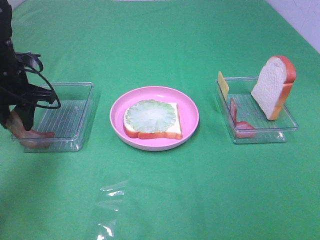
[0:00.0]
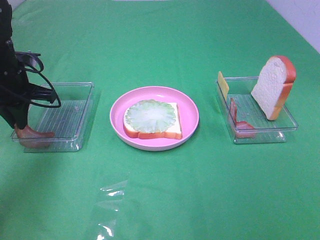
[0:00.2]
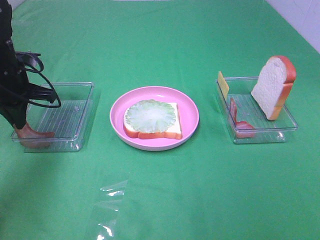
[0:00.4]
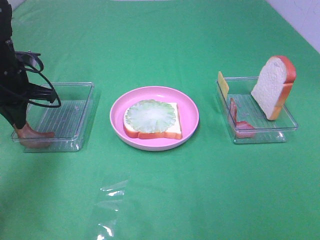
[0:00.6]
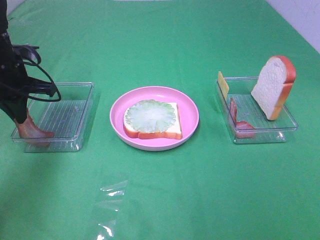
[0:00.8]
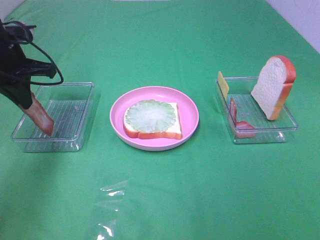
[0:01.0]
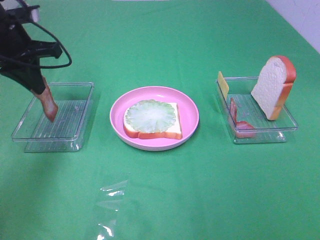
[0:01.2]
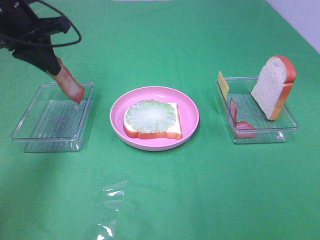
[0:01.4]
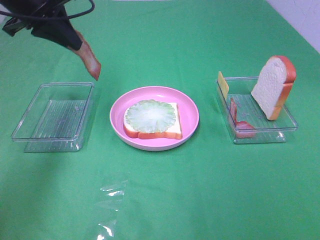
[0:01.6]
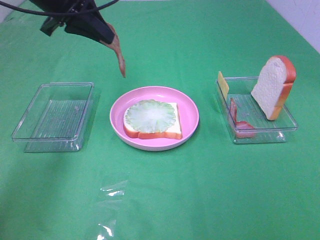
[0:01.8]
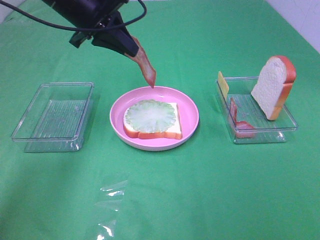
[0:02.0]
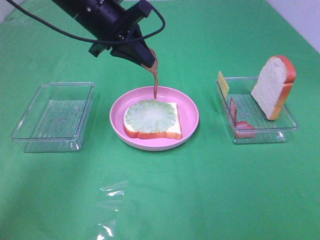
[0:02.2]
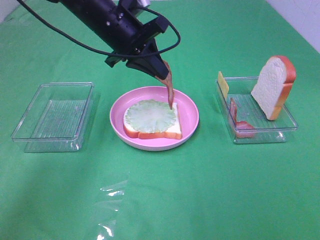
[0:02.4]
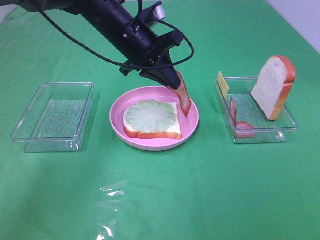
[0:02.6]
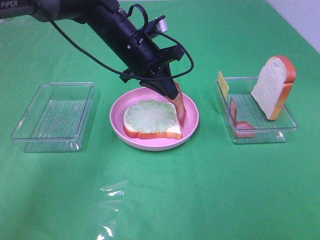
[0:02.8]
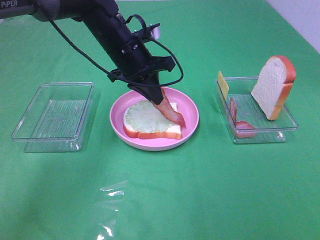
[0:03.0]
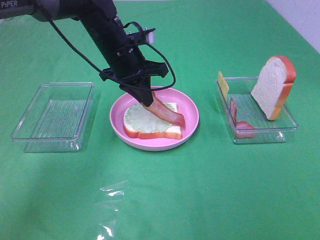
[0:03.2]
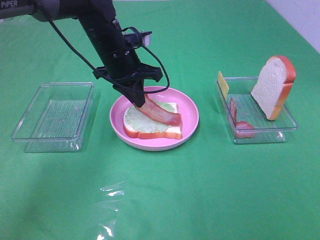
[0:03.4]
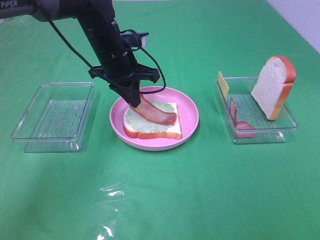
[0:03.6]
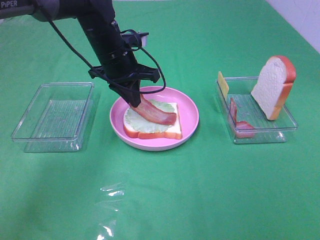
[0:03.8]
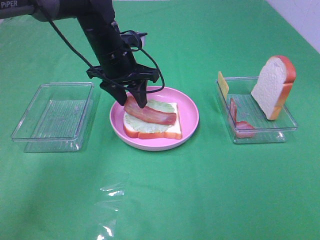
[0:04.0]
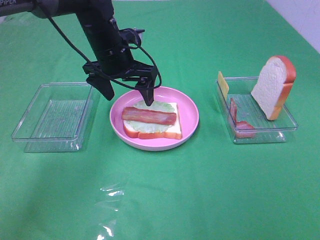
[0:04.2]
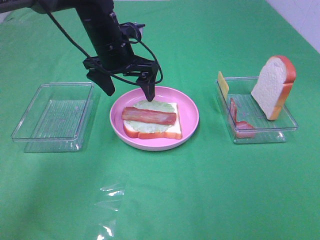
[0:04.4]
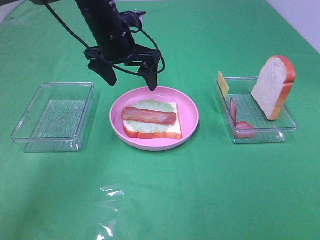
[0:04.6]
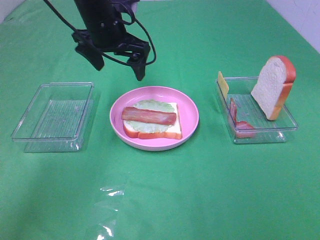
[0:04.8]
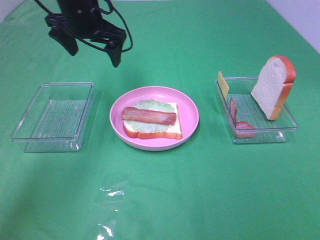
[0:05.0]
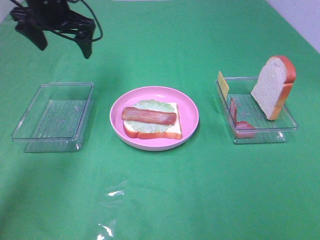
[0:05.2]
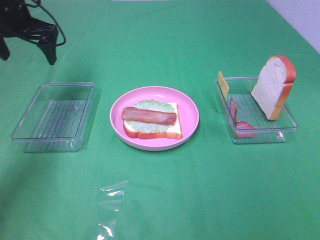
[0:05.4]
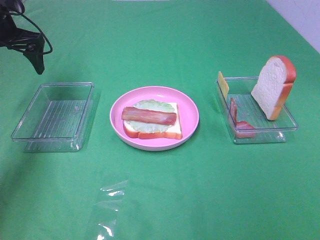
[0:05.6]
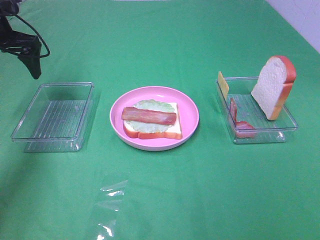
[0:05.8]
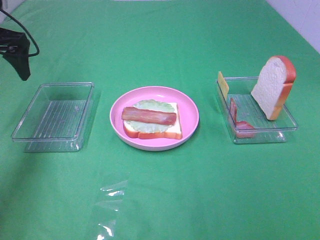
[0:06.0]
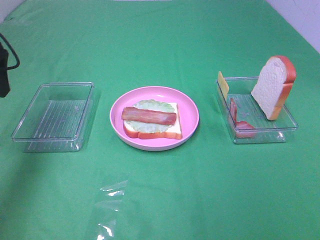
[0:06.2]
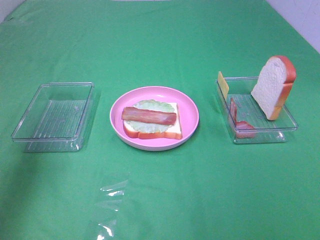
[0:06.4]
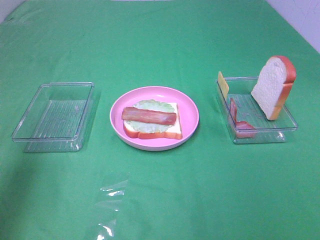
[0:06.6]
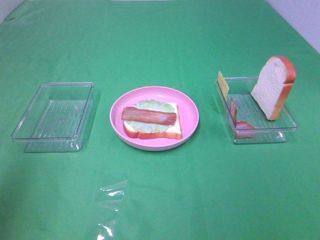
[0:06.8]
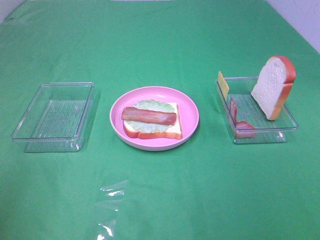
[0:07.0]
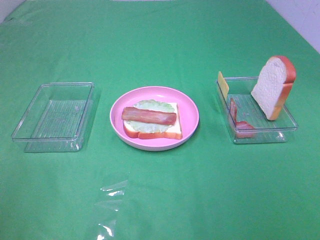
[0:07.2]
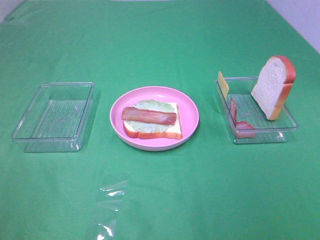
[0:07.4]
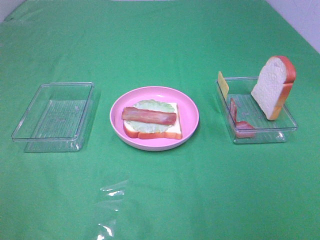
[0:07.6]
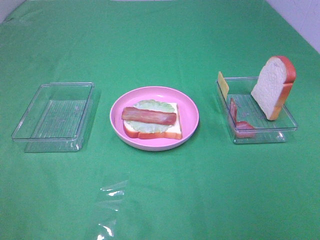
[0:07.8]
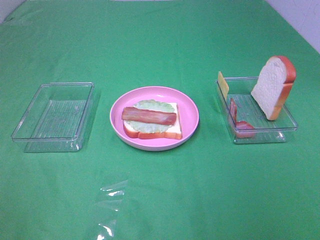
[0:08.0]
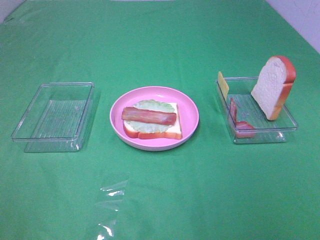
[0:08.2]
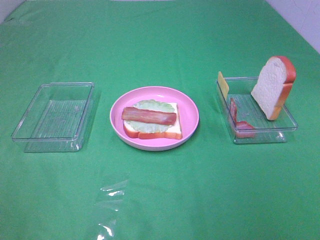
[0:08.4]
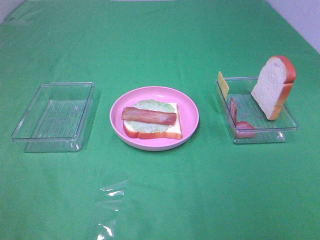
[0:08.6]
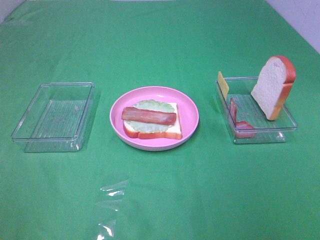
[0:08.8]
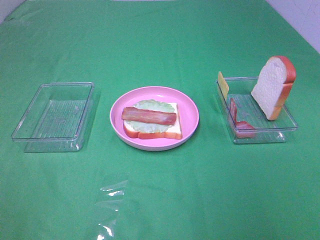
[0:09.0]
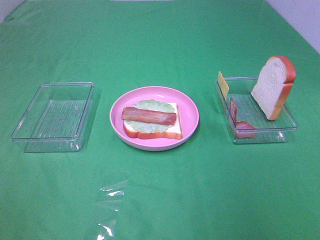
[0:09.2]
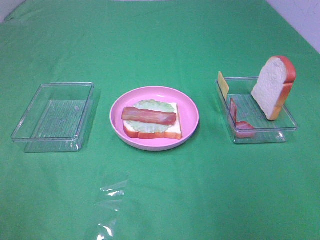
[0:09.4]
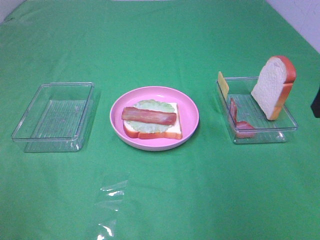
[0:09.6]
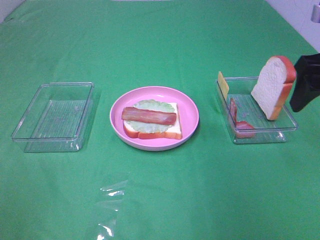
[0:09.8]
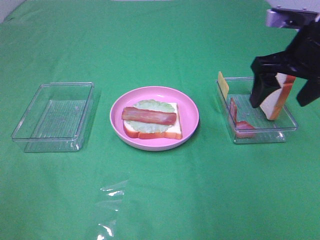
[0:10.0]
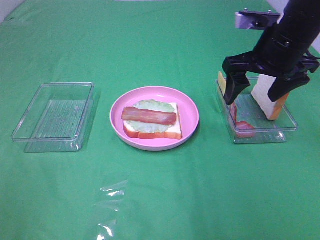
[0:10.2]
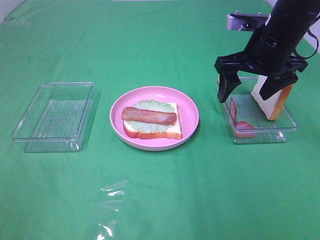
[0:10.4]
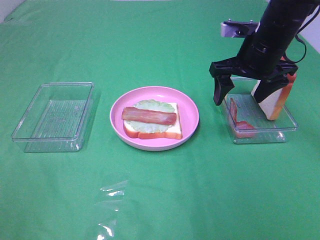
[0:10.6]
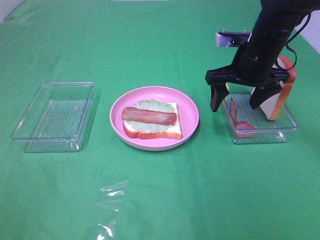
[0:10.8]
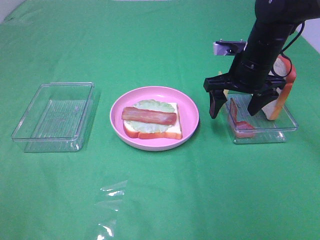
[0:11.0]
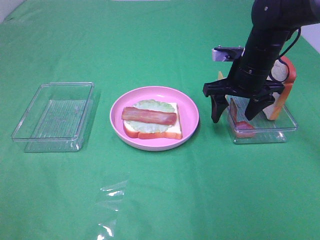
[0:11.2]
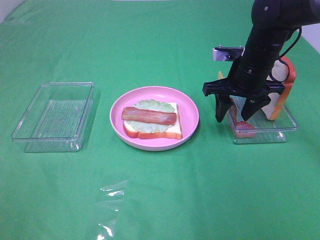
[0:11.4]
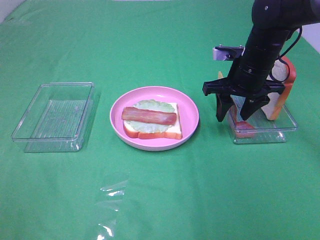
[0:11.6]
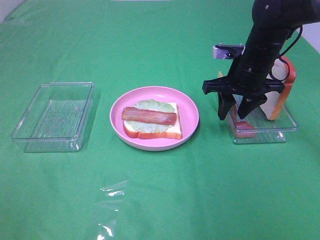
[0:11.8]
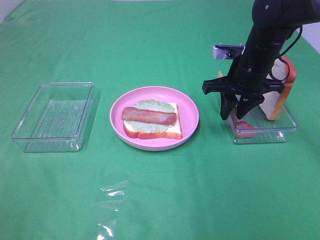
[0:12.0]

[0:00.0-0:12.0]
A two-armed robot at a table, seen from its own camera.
Task of the whole recording: Make sandwiches.
Step, 0:00.6 to 0:04.2: Left hand:place bacon on lettuce slice.
0:00.0 to 0:01.6: The left gripper is displaced upward and to the right by about 15 cm, and closes.
0:01.6 to 0:03.0: The left gripper moves to the right and downward, some 20 cm.
0:03.0 to 0:04.4: The left gripper opens up.
0:04.4 to 0:06.0: The left gripper is displaced to the left by about 20 cm.
0:06.0 to 0:07.6: The left gripper heads backward, covering about 40 cm.
0:09.0 to 0:10.4: The right gripper shifts about 30 cm forward.
0:10.4 to 0:12.0: The right gripper moves downward, approximately 5 cm, and closes up.

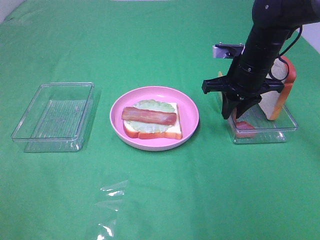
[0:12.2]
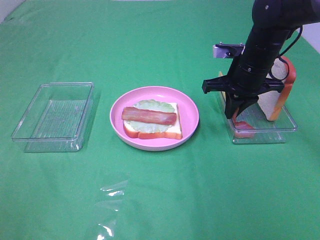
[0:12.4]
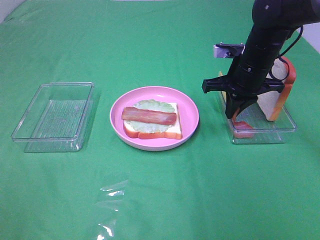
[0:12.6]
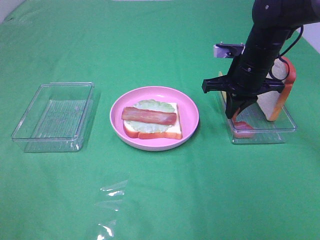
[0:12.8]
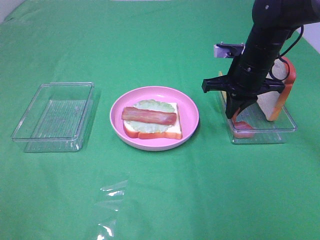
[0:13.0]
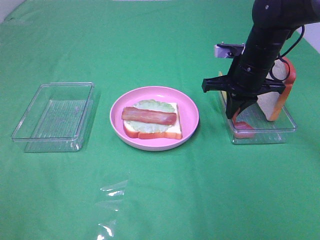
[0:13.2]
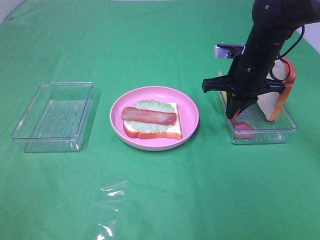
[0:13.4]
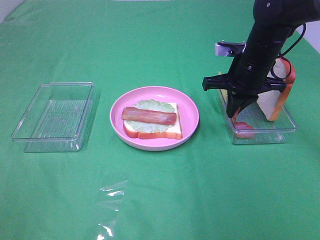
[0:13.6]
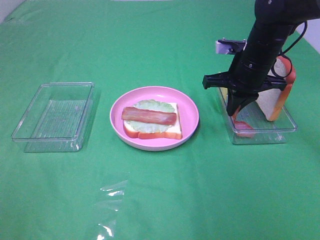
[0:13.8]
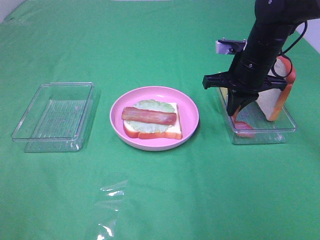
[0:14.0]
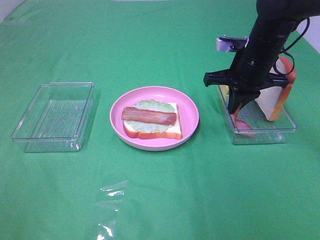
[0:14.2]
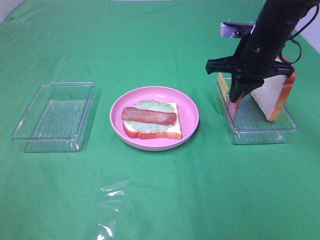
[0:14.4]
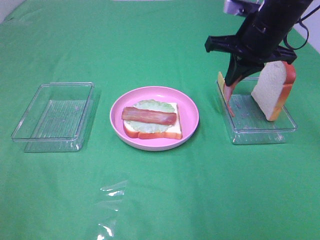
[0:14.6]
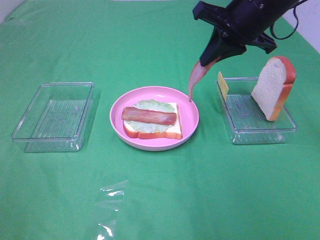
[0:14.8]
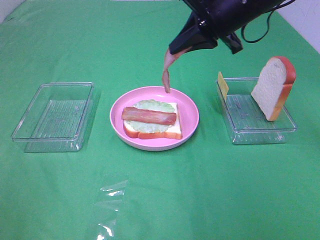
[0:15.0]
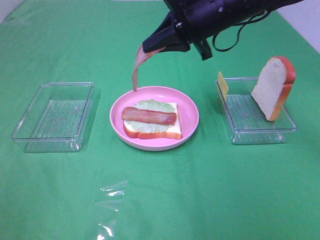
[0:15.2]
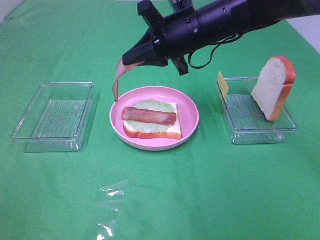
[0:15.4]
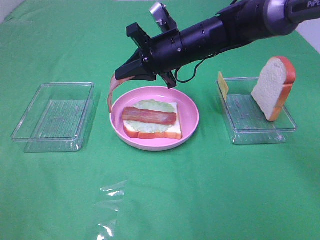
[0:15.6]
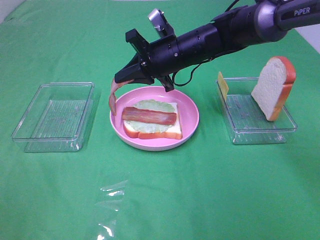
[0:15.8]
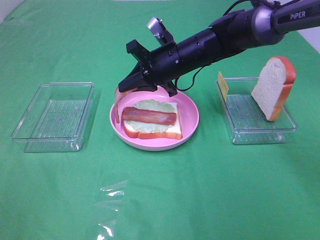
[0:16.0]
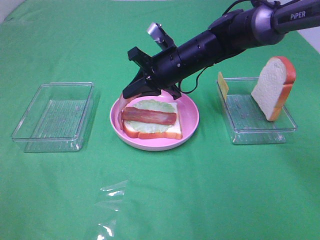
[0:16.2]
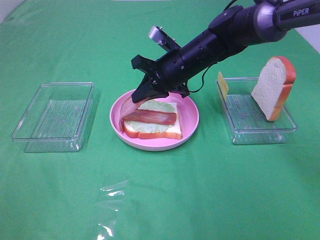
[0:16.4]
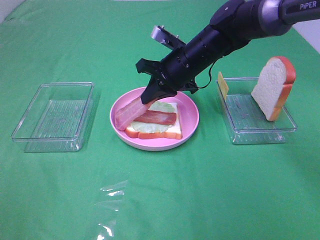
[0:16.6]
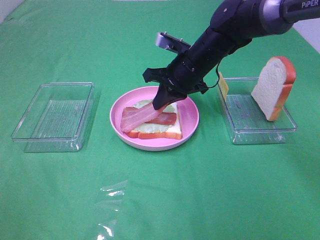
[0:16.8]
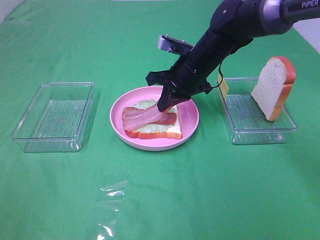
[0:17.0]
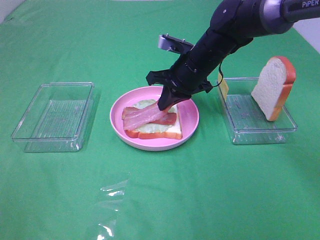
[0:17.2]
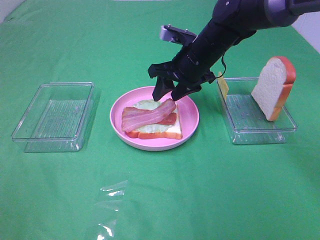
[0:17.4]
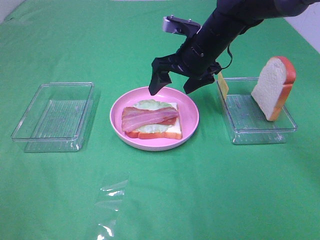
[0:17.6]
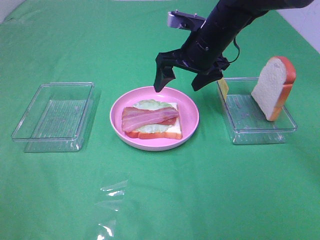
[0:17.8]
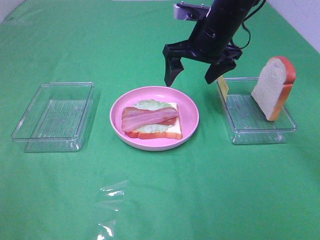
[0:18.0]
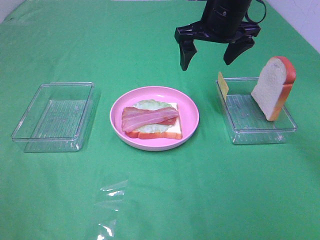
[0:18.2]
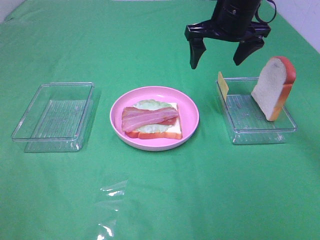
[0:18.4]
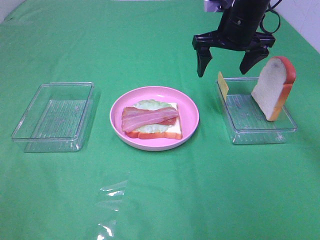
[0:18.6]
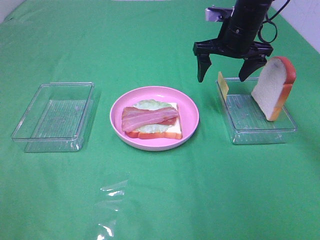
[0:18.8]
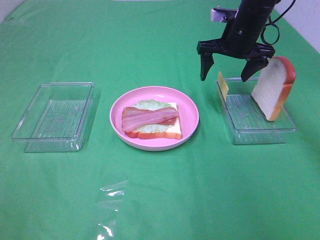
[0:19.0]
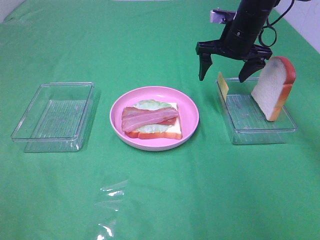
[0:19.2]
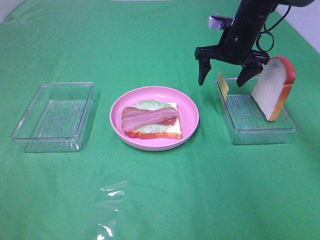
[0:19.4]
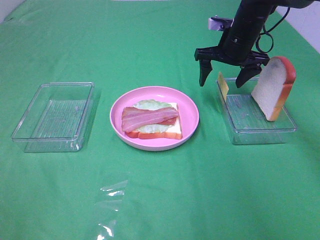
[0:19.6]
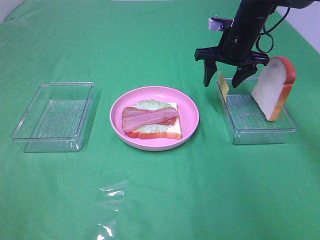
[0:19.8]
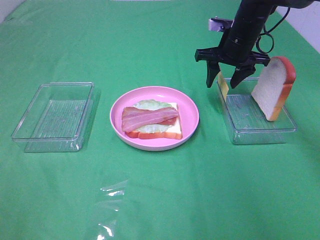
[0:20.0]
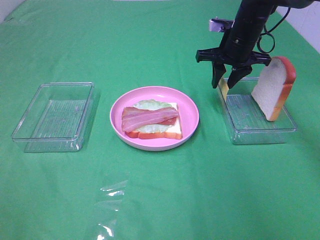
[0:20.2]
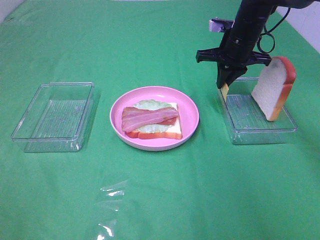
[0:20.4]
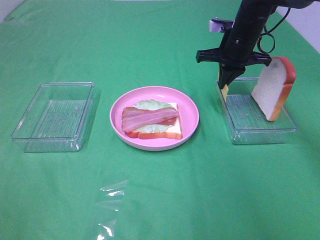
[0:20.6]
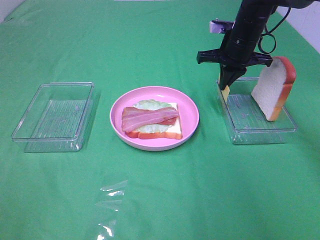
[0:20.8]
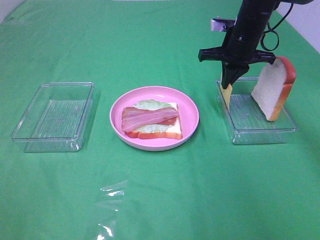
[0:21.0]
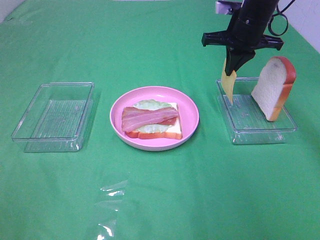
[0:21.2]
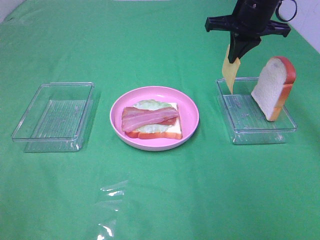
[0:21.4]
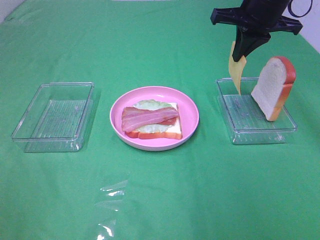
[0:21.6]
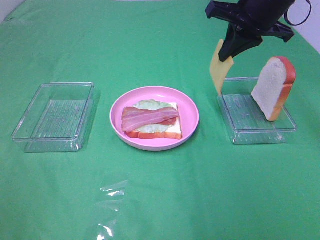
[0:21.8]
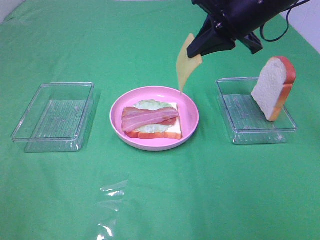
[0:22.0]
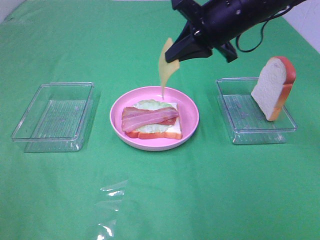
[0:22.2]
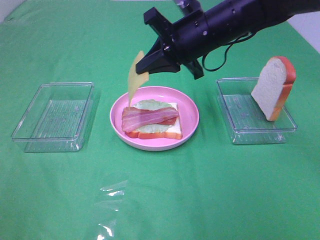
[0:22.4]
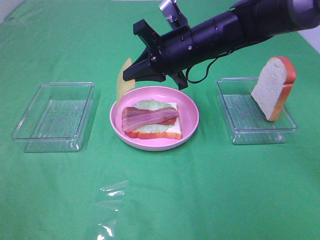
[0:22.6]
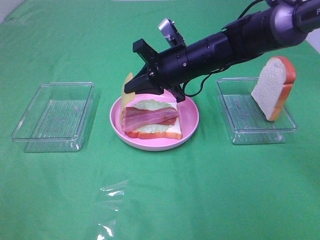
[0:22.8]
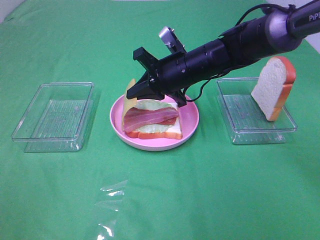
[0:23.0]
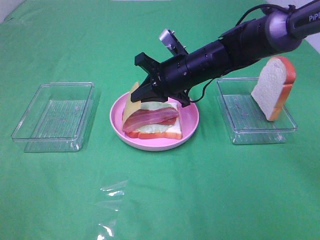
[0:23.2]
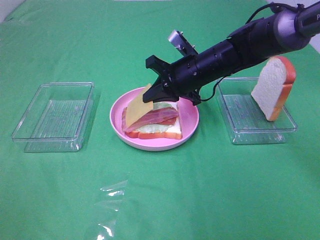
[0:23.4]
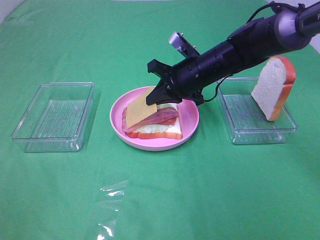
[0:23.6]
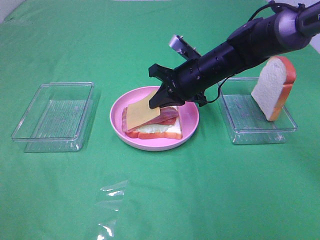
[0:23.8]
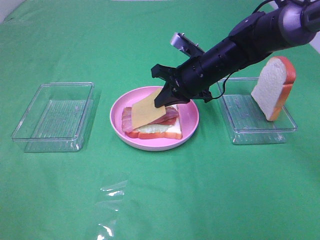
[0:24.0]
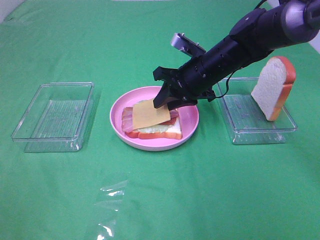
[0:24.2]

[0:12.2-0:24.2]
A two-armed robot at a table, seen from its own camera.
Task of the whole recording: Make sandwiches.
Step, 0:13.2 to 0:17.4: Right hand:place bacon on bacon.
Step, 0:17.6 to 0:20.6: Right hand:grab the cheese slice.
0:12.2 to 0:13.8: The two grippers keep their place.
0:13.8 to 0:15.2: The right gripper heads upward and to the left, covering approximately 10 cm.
0:15.2 to 0:16.6: The right gripper goes approximately 10 cm downward.
0:16.6 to 0:18.2: The right gripper is displaced upward by approximately 10 cm, and opens up.
0:18.2 to 0:19.8: The right gripper moves downward, forward and to the right, about 10 cm.
0:19.8 to 0:21.2: The right gripper closes up.
0:21.2 to 0:22.6: The right gripper goes some 15 cm to the left and backward.
0:22.6 to 0:24.2: The right gripper moves some 5 cm, and opens up.
